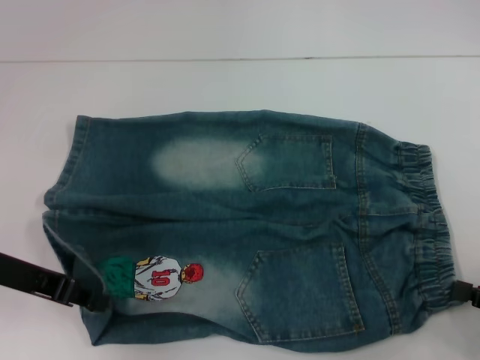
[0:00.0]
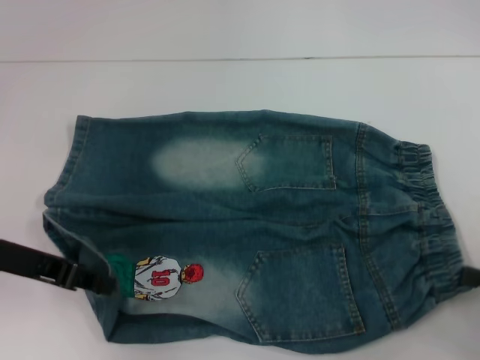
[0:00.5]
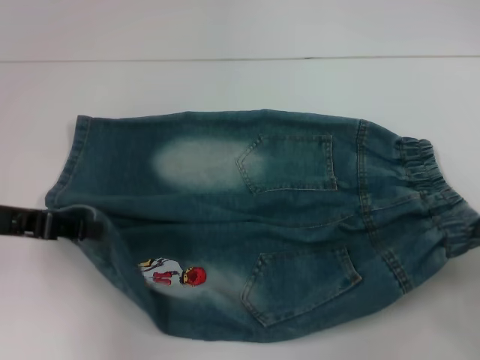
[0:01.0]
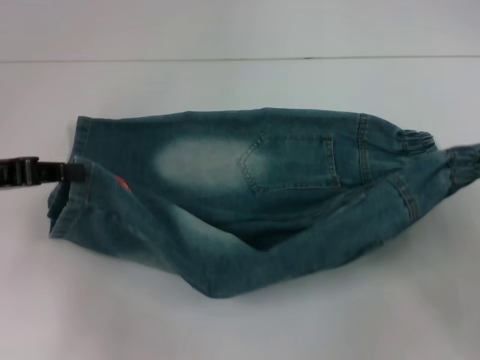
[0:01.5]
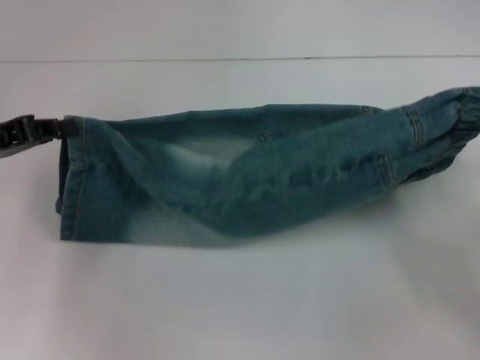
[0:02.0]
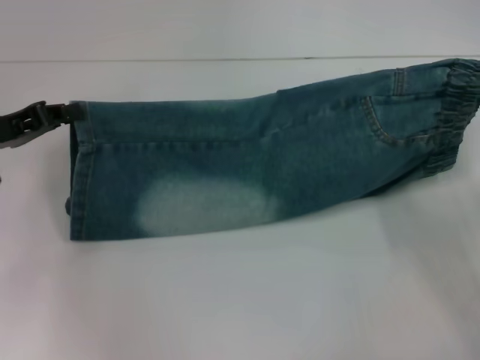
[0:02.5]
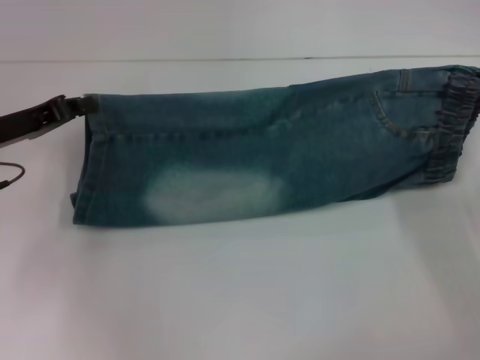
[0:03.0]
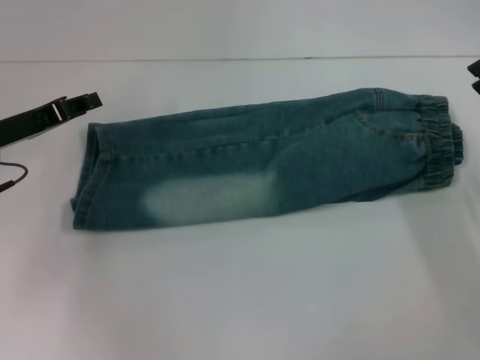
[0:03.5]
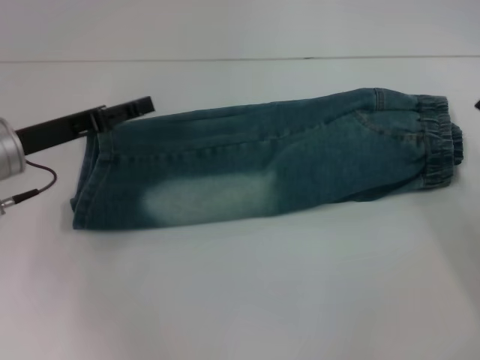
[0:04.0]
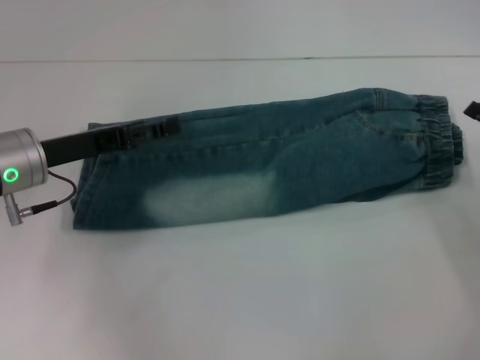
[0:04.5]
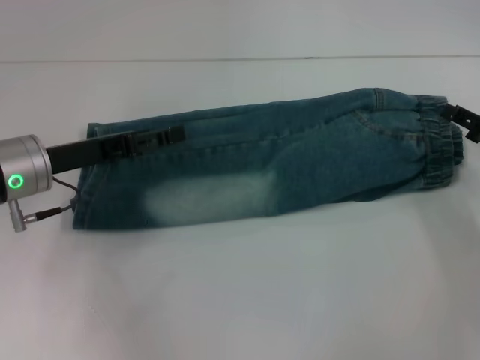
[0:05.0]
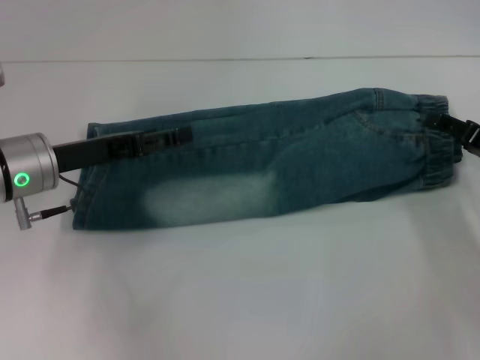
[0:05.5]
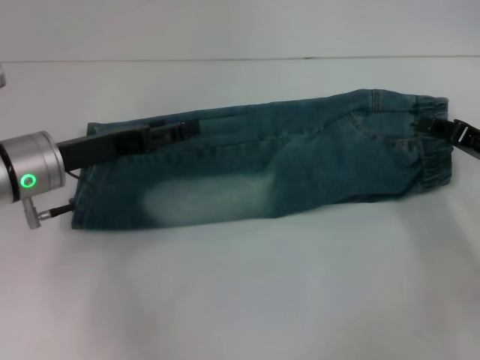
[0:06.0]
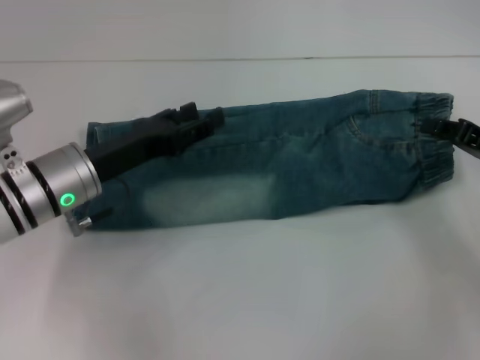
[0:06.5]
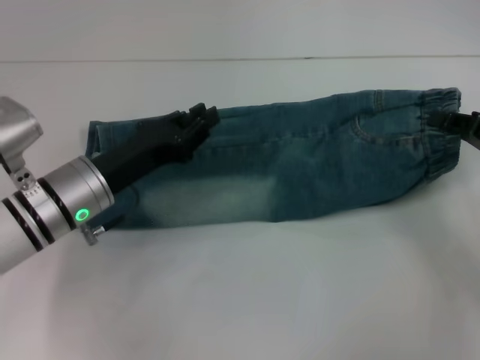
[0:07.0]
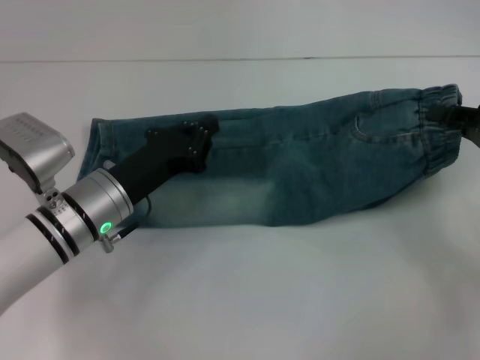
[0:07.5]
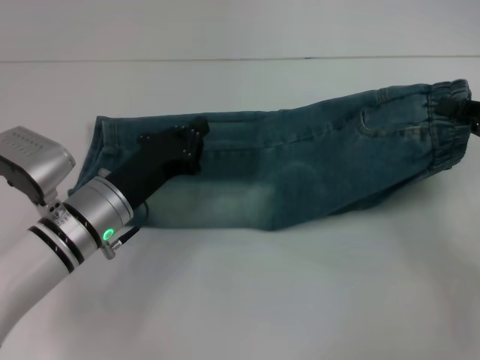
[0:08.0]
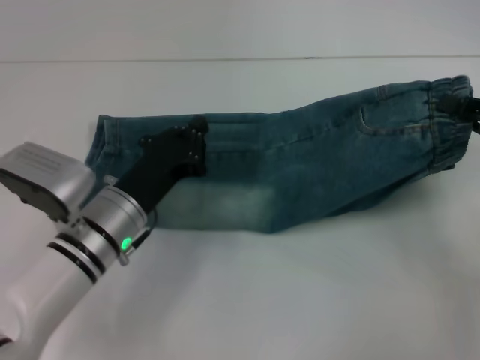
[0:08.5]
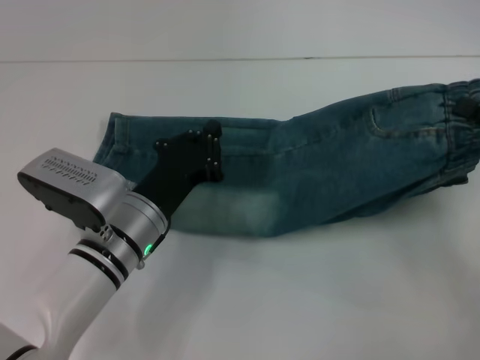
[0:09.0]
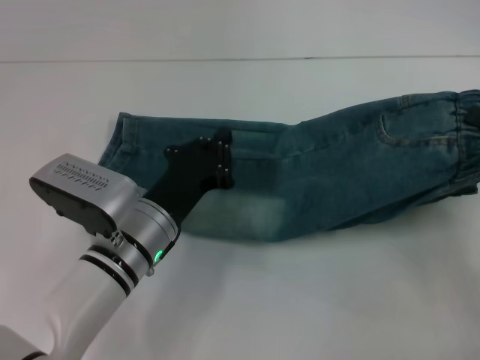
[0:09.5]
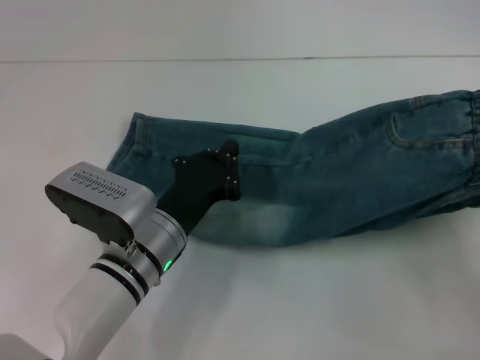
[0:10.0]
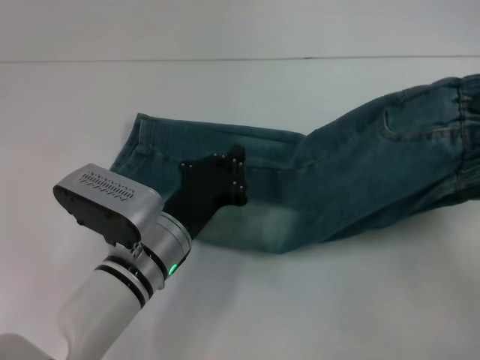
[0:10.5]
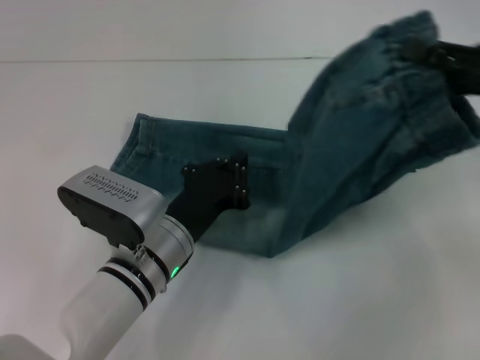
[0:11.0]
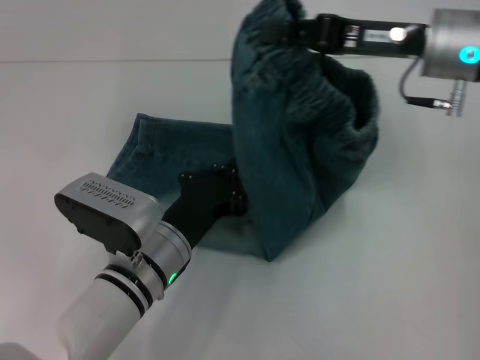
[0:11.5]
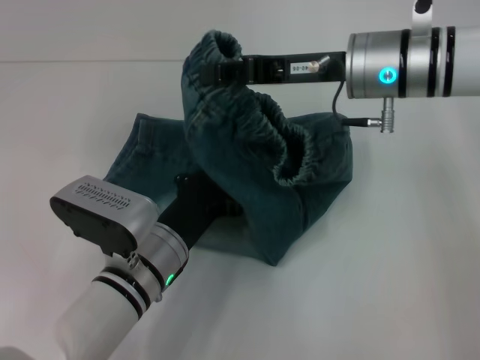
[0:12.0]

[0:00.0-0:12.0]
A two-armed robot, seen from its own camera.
Step, 0.0 to 5.0 s: Fold upward with your right hand.
Step, 5.5 to 6.0 s: Grab the waistband with your right hand.
0.0 to 2.0 s: The left gripper shifts by some 5 cm. The right gripper goes some 5 cm forward.
2.0 to 4.0 s: The left gripper is displaced to the right by some 5 cm, and opens, while the right gripper opens up.
4.0 to 6.0 s: The right gripper heads forward, covering some 5 cm.
6.0 to 8.0 s: The right gripper changes place by some 5 cm, and closes up; the left gripper travels downward and to the right by roughly 10 cm, and closes up.
8.0 to 10.0 s: The right gripper shifts some 5 cm backward, while the left gripper heads to the right, covering roughly 5 cm.
10.0 to 12.0 s: The right gripper travels to the left and forward by roughly 30 cm.

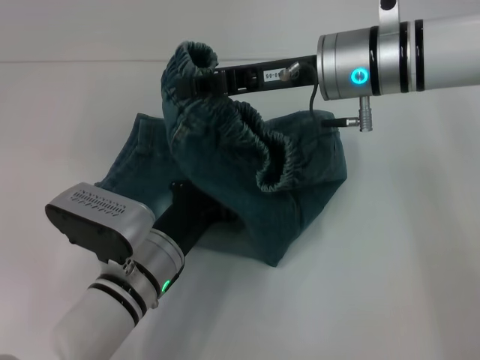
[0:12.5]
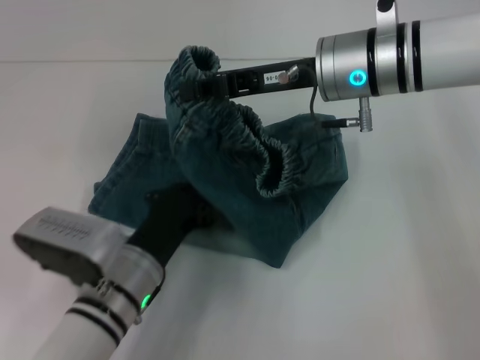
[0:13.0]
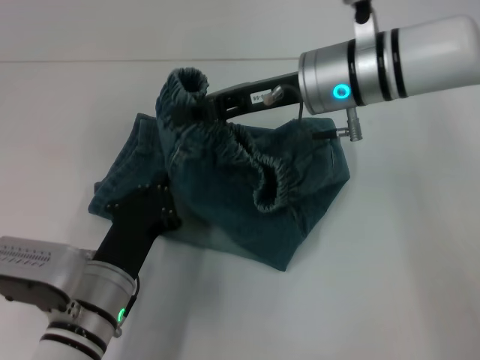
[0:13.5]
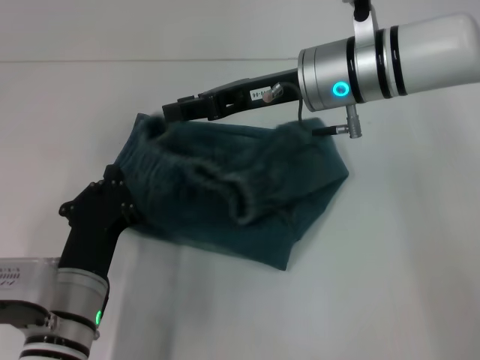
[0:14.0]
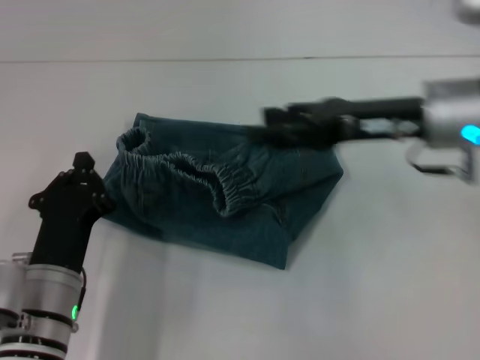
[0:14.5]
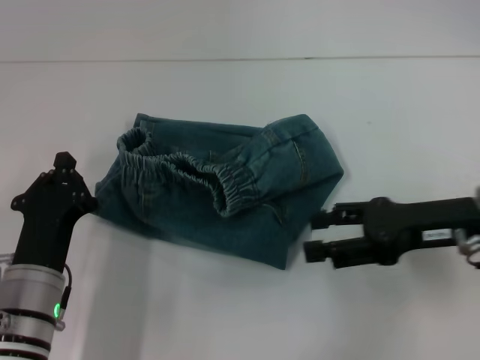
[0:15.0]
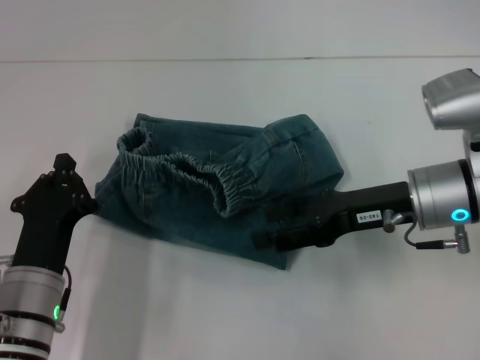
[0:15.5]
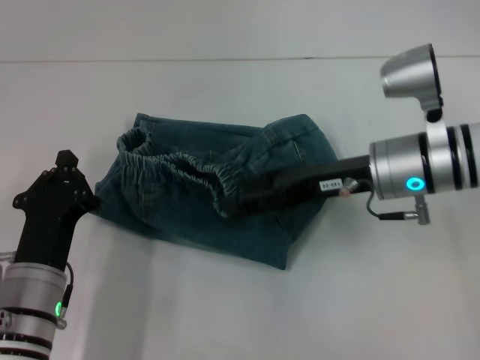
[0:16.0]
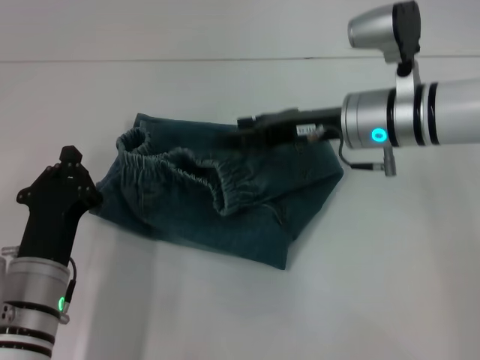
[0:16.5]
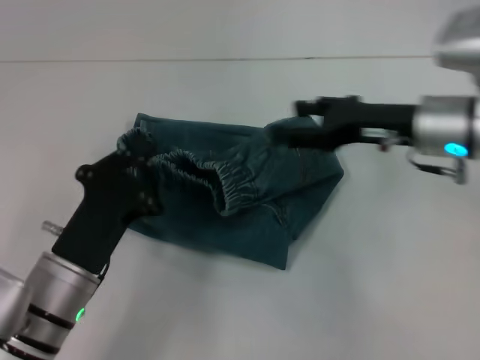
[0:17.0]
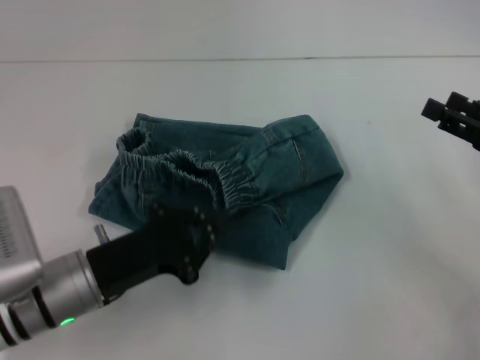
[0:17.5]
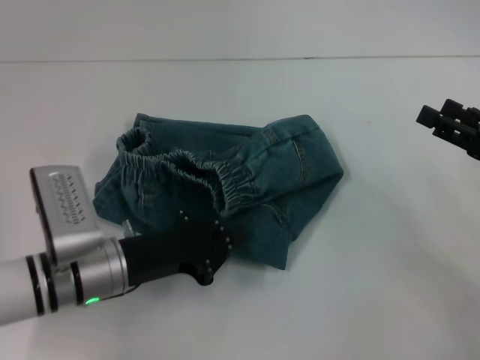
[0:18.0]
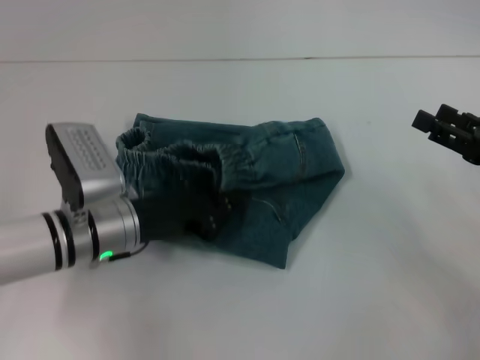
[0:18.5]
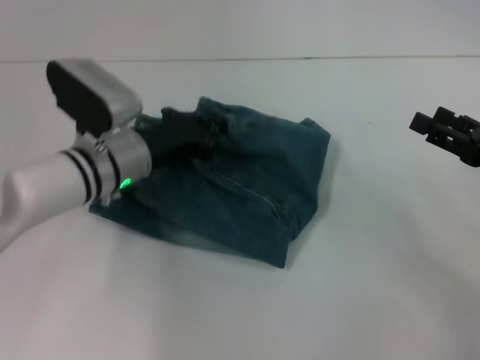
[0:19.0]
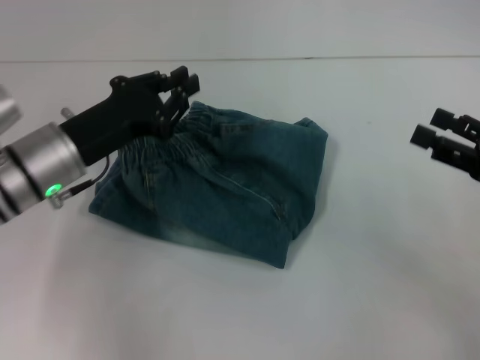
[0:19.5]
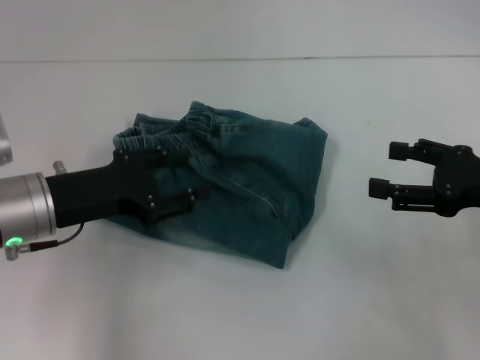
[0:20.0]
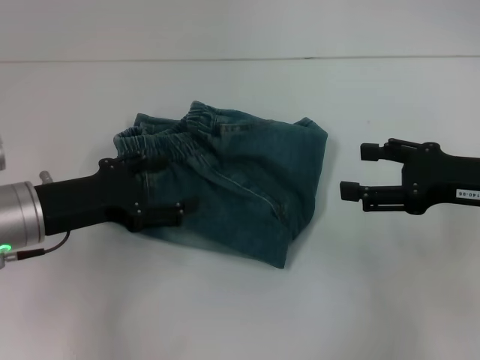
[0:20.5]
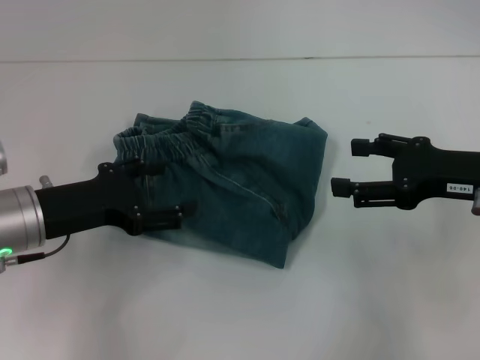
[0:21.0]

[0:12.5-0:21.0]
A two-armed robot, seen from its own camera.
Step, 13.0 to 14.0 s: Fold to the left with your right hand.
Step, 14.5 to 19.5 s: Adjust the pants with your left hand.
12.5 to 14.5 s: The right gripper shifts some 10 cm to the right and backward, and opens; the left gripper shifts approximately 5 cm to the left.
14.5 to 16.5 s: The right gripper travels to the left by about 5 cm.
16.5 to 19.0 s: The left gripper heads forward, covering about 15 cm. Meanwhile the right gripper travels to the right and backward by some 20 cm.
19.0 to 21.0 s: The right gripper travels to the left by about 5 cm. Meanwhile the left gripper travels backward and to the left by some 10 cm, and opens.

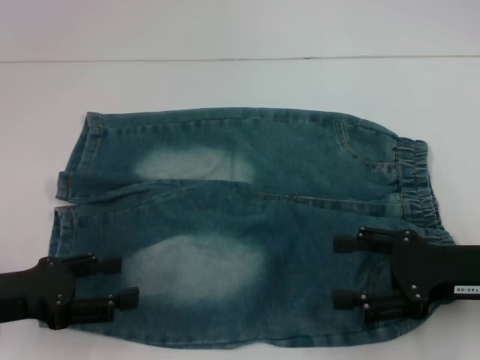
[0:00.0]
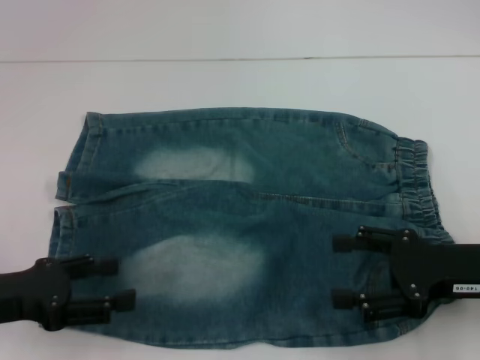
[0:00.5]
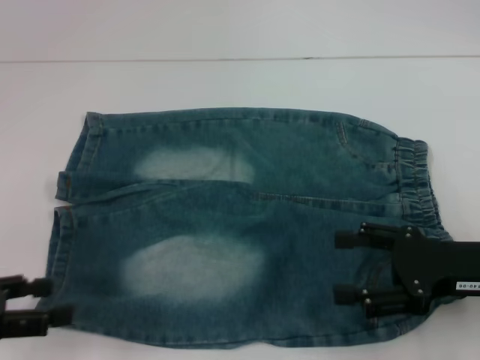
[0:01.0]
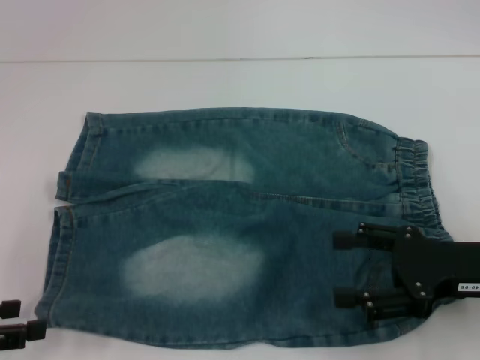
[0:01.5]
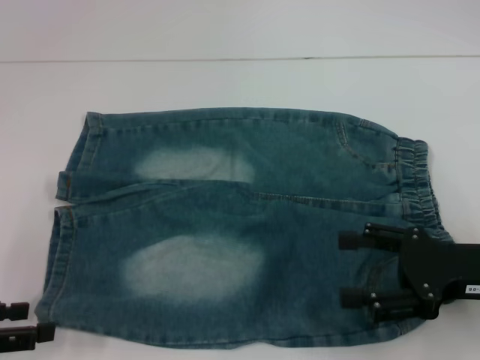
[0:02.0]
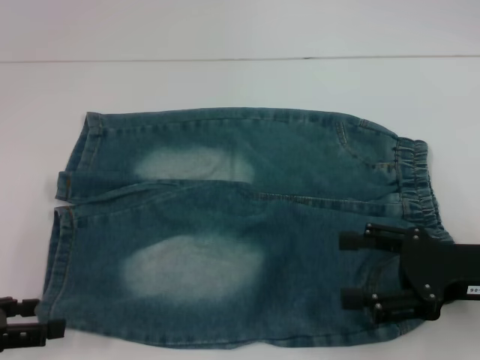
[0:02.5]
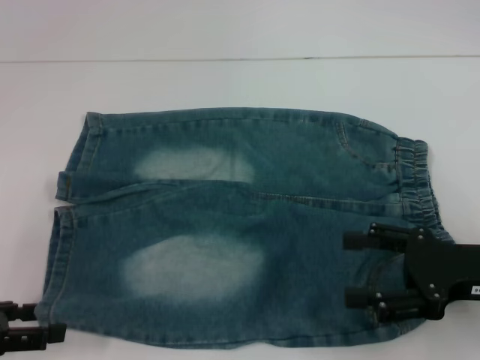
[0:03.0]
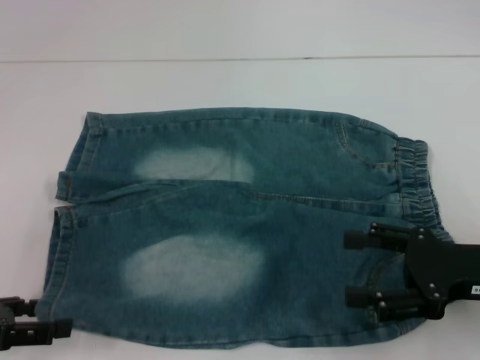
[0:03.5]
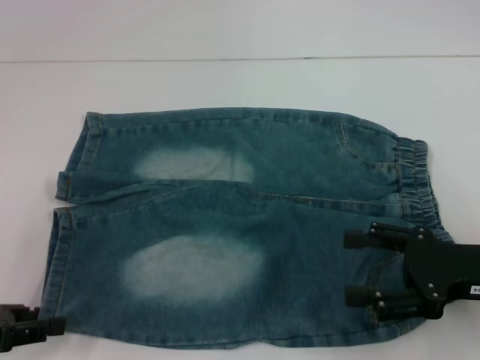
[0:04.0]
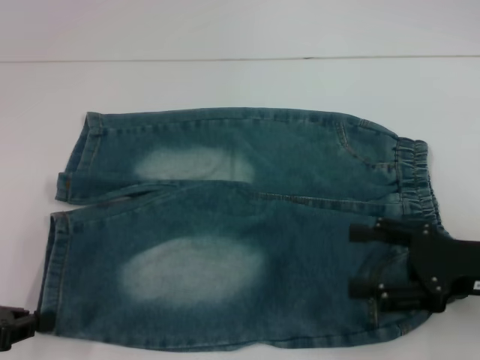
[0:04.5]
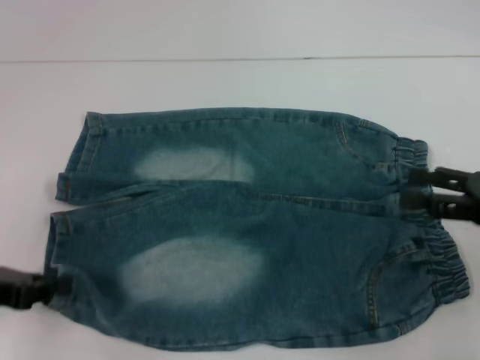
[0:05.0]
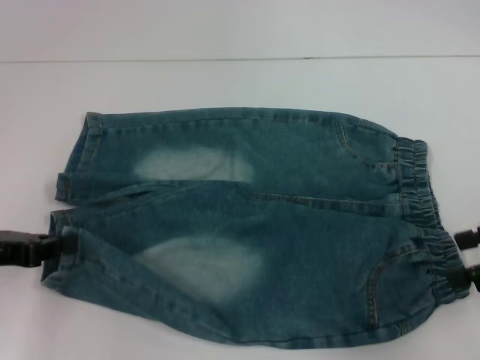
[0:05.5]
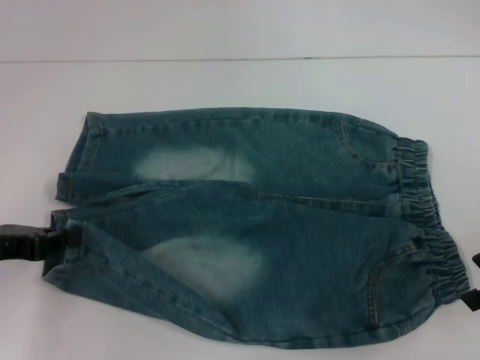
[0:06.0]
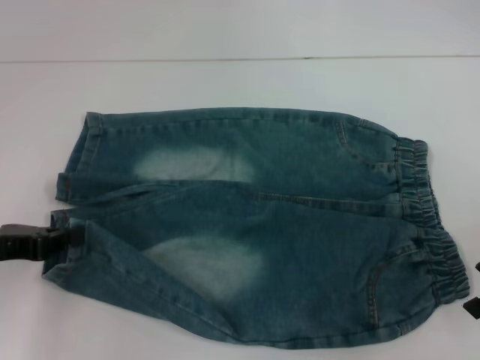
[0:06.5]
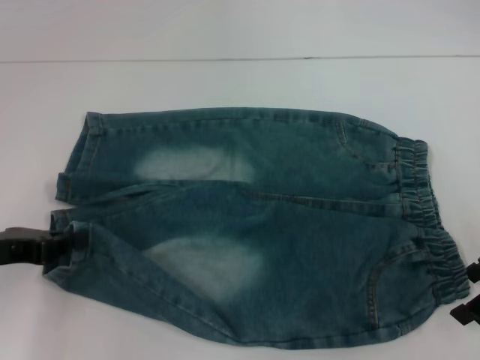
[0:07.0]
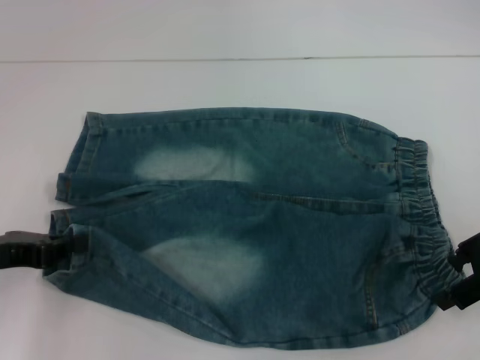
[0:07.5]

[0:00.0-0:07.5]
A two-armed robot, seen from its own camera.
Step, 0.0 to 4.5 s: Grab the lower left pant leg with your left hand.
0.0 to 2.0 s: The left gripper shifts roughly 5 cm to the left.
2.0 to 4.0 s: The grippers make only small movements.
4.0 to 5.5 s: The right gripper goes some 10 cm upward and to the right, while the left gripper is displaced forward by roughly 5 cm, and closes up.
5.5 to 7.5 s: The right gripper moves roughly 5 cm.
